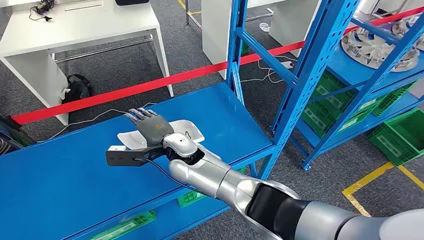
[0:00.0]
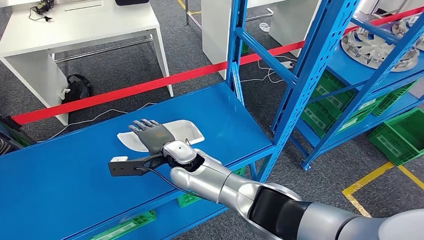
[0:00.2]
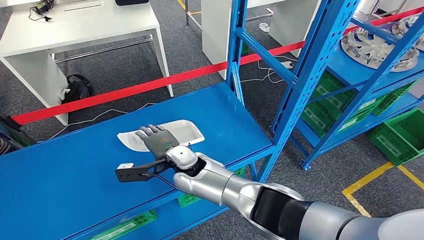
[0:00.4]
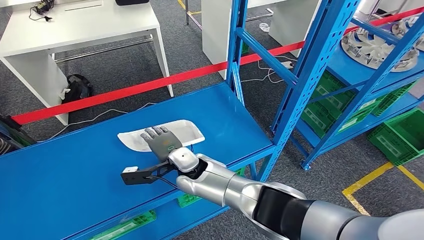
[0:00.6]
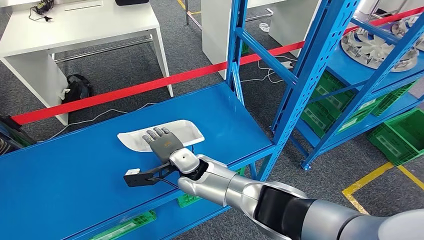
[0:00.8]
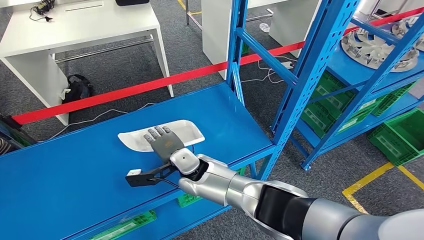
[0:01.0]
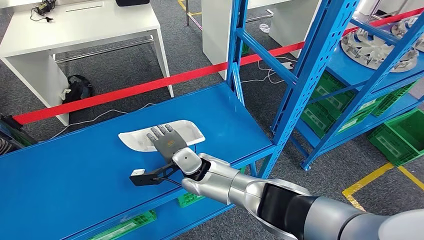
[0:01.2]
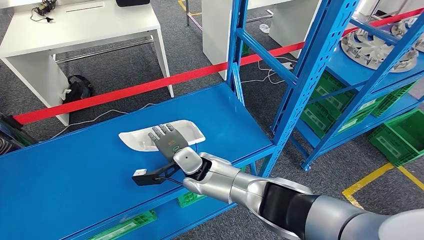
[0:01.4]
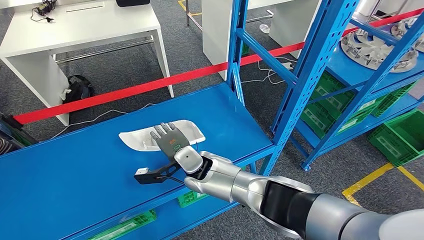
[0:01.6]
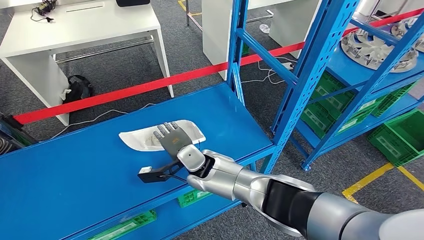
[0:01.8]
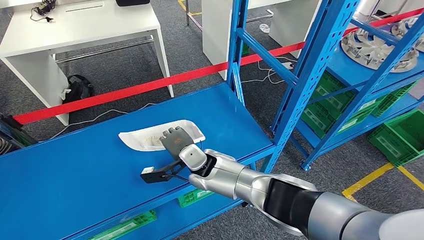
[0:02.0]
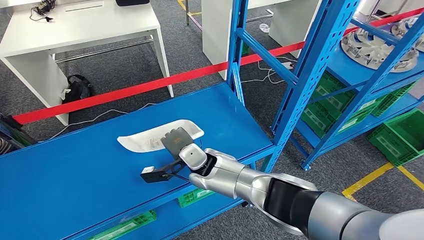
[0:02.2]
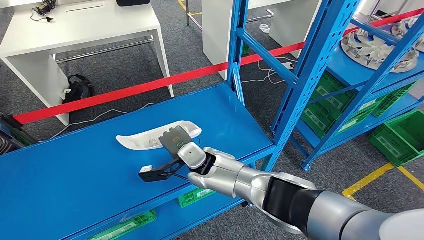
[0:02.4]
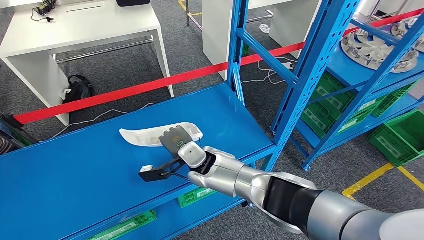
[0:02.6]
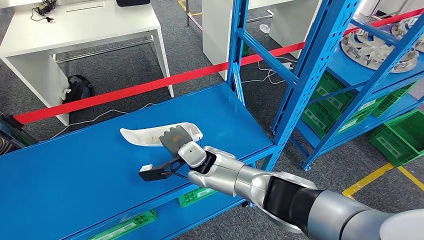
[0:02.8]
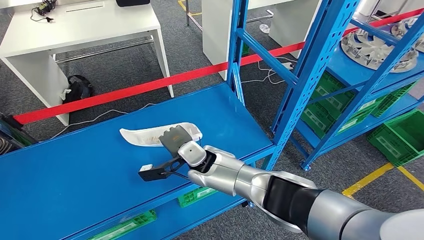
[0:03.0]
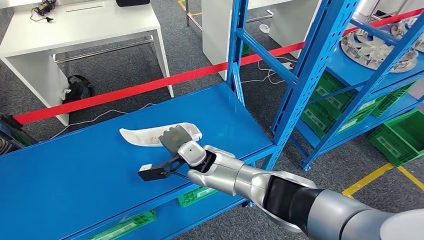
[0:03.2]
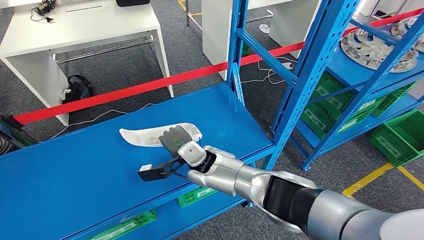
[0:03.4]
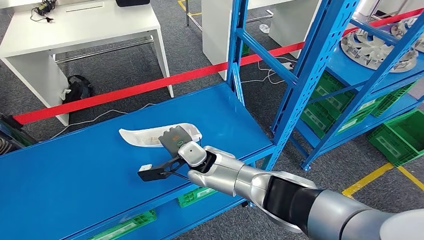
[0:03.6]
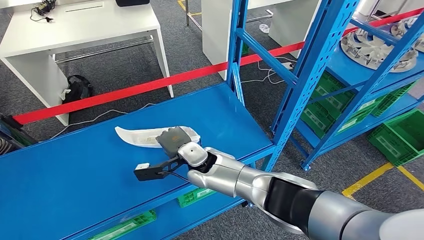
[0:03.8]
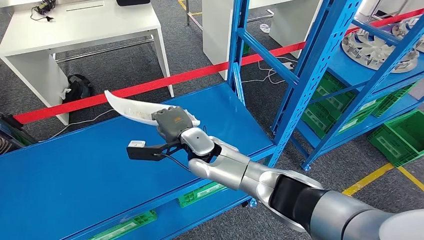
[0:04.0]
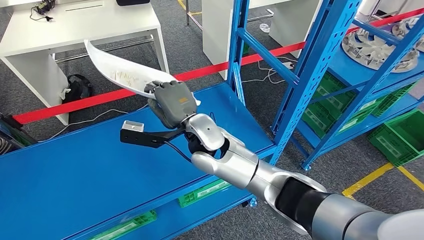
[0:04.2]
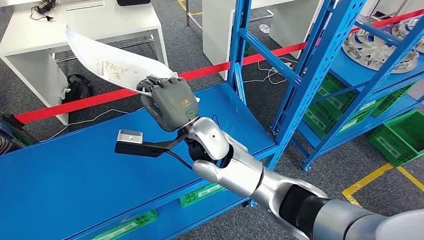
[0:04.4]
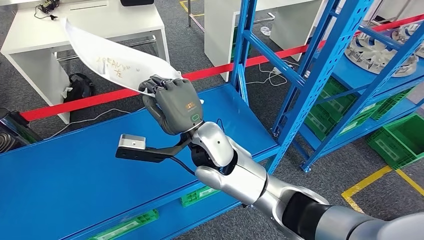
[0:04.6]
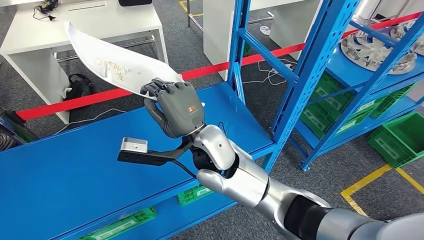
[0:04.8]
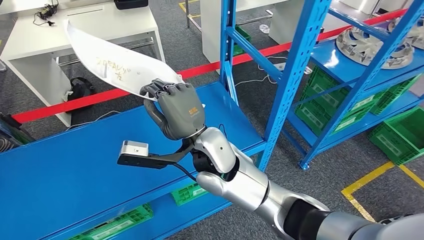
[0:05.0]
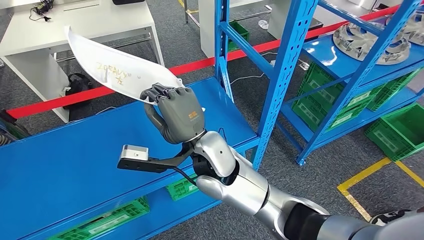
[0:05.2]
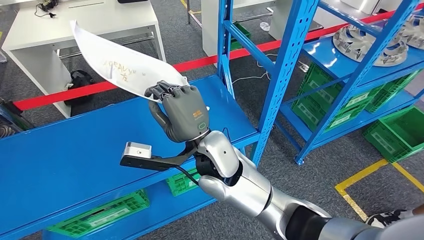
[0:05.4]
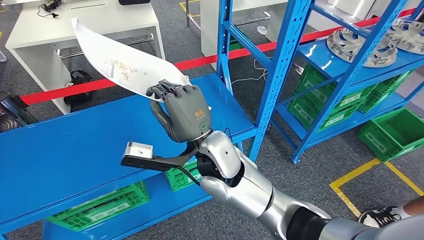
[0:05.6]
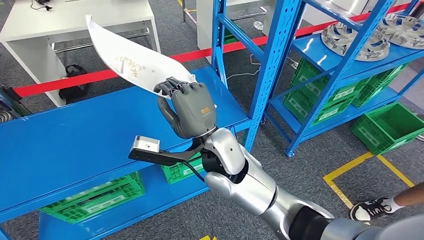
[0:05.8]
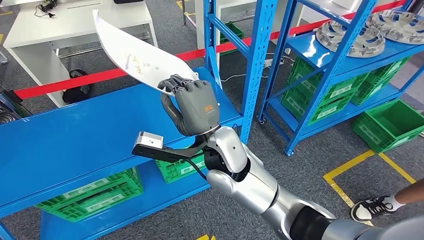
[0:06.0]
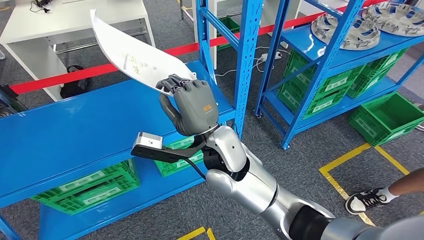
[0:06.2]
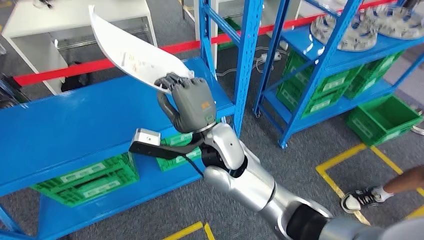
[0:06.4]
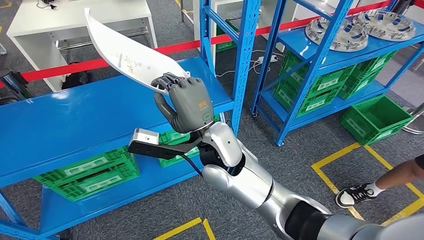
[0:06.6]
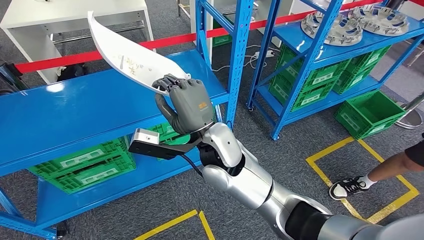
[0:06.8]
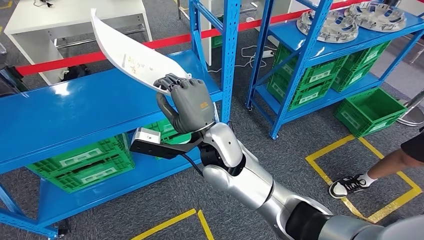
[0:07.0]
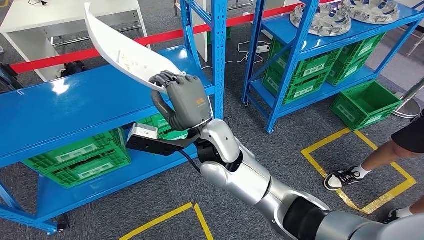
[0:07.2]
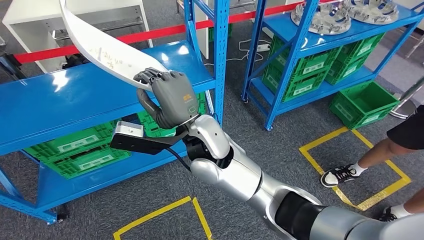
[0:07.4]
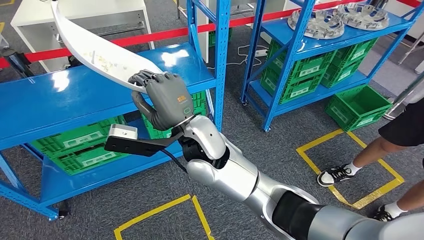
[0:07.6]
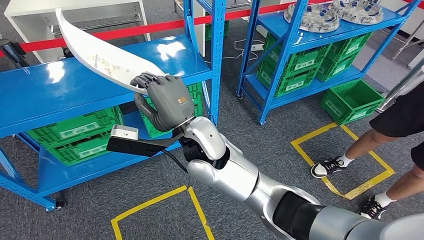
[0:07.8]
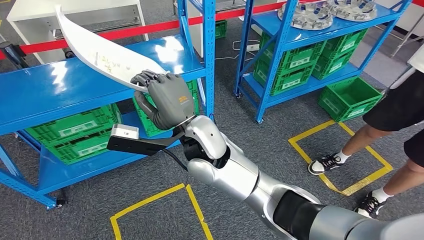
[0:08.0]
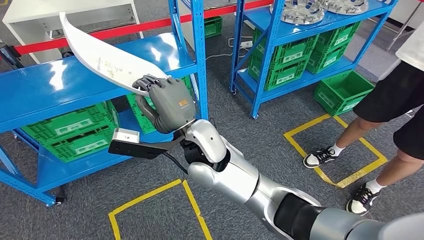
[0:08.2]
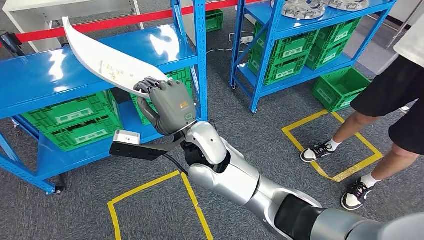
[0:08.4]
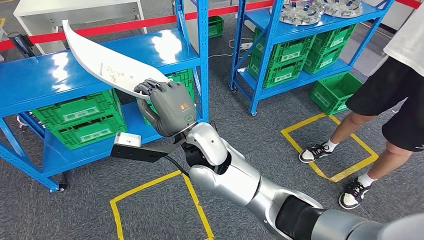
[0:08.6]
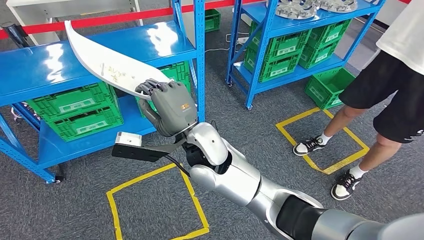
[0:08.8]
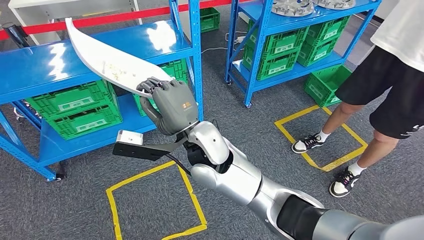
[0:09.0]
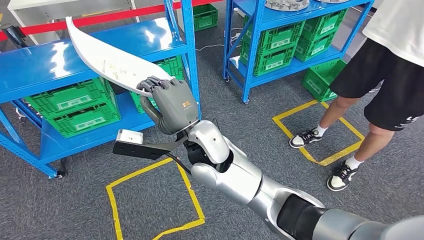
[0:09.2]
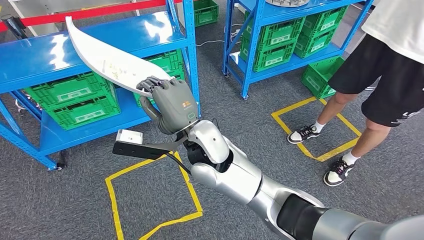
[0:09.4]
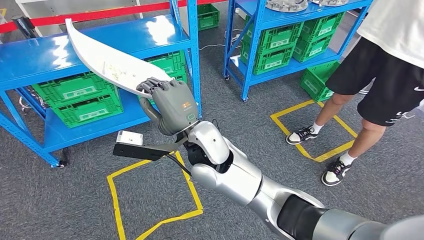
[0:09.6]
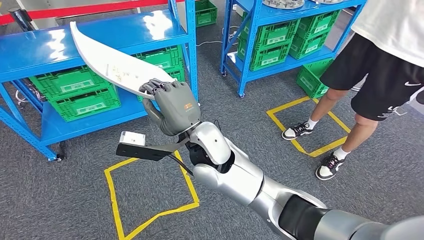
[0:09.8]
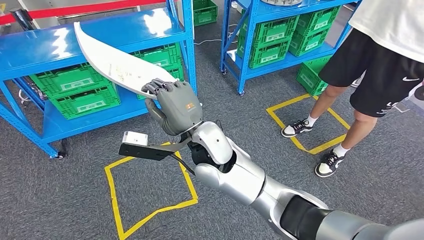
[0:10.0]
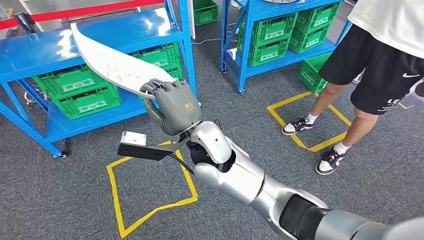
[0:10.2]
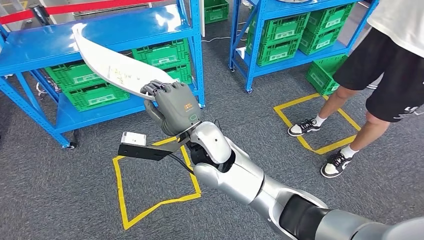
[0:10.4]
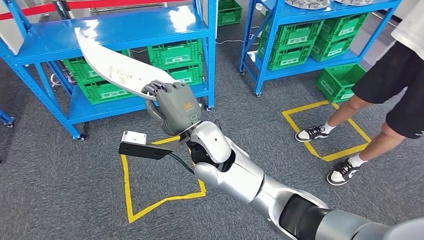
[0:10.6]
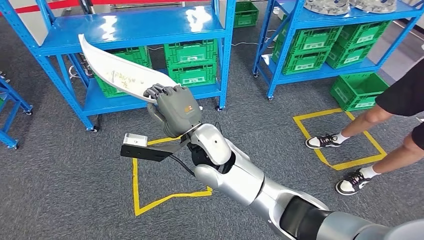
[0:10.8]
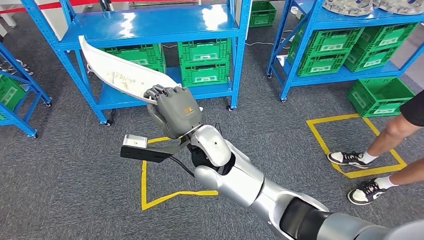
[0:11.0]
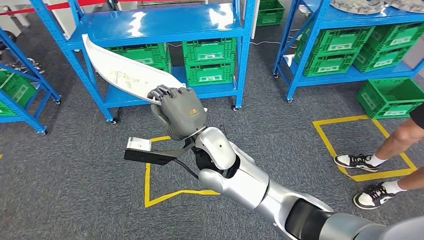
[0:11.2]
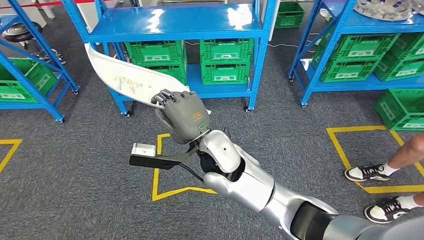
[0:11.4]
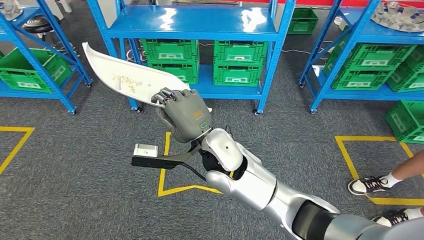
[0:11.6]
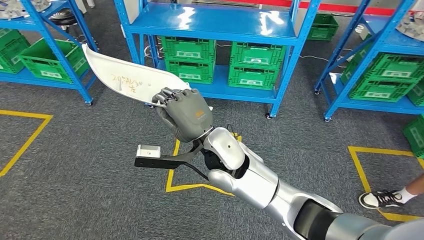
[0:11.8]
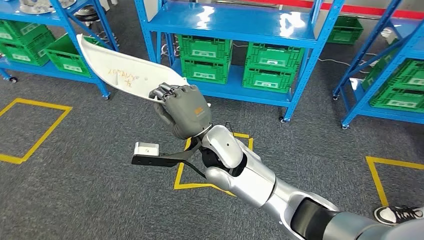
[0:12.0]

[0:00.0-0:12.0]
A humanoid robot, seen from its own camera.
Step, 0:00.0 to 0:04.4: Pick up the small component from the shelf.
0:01.6 to 0:03.0: The hands make only small movements.
0:03.0 to 0:04.4: The right hand shifts about 15 cm upward and to the left.

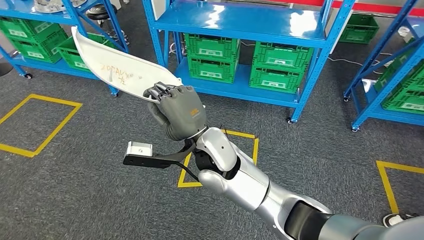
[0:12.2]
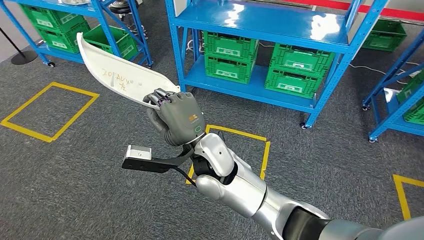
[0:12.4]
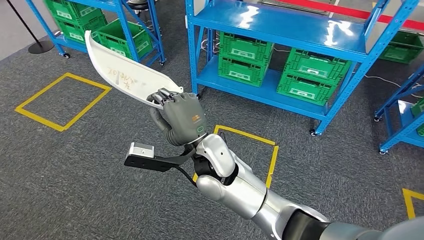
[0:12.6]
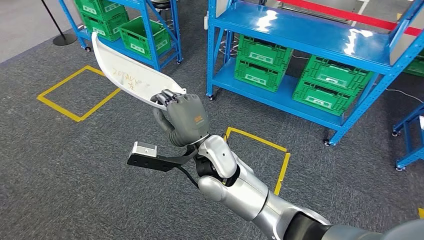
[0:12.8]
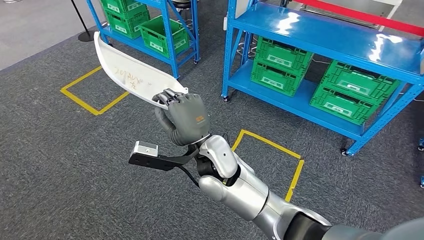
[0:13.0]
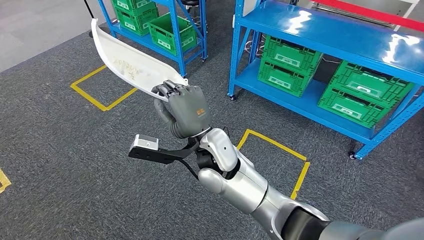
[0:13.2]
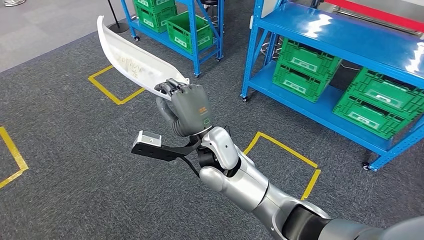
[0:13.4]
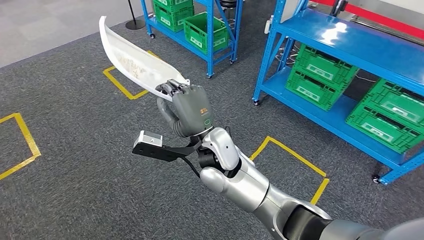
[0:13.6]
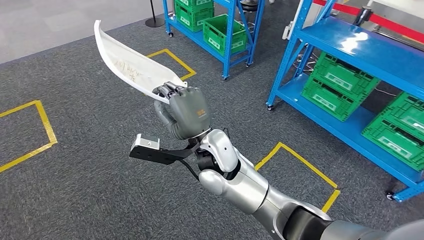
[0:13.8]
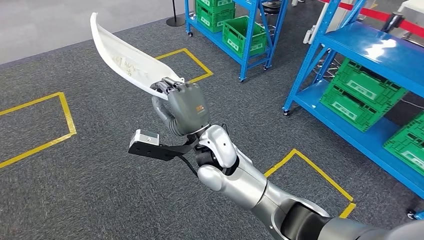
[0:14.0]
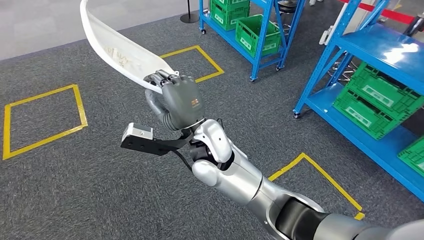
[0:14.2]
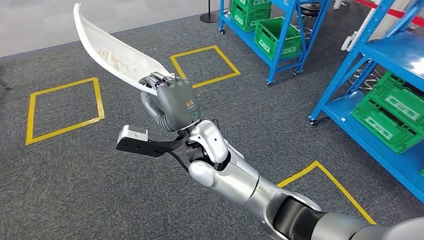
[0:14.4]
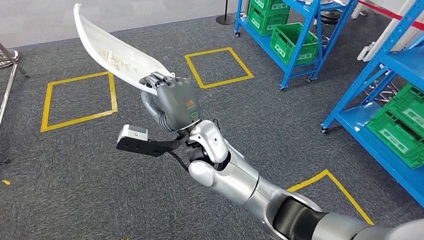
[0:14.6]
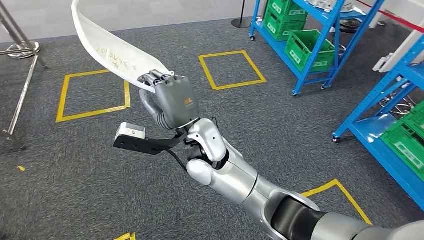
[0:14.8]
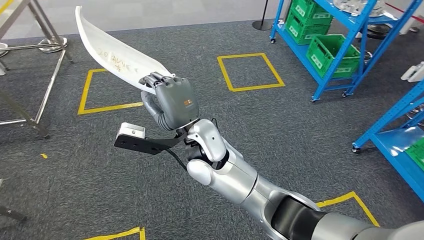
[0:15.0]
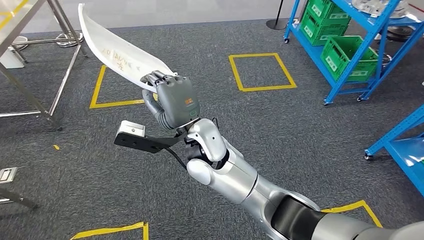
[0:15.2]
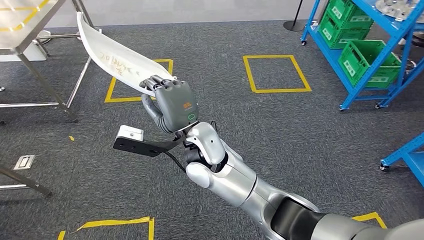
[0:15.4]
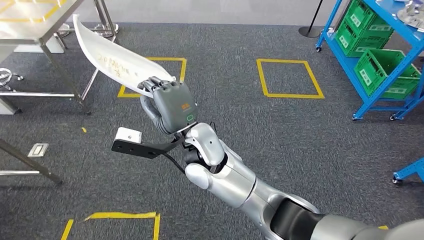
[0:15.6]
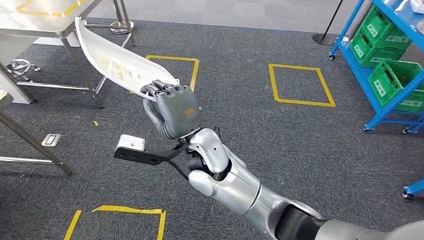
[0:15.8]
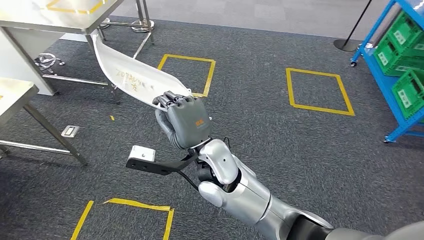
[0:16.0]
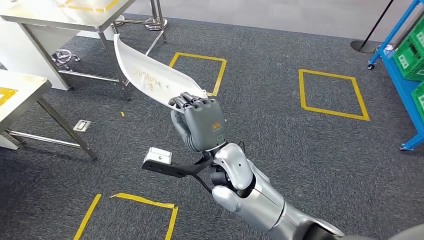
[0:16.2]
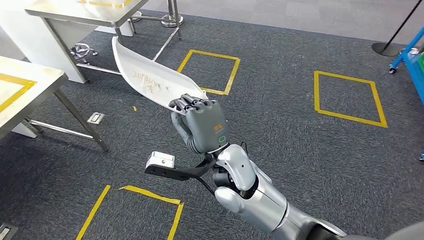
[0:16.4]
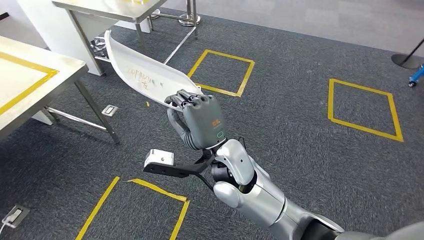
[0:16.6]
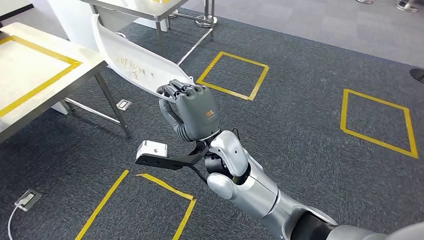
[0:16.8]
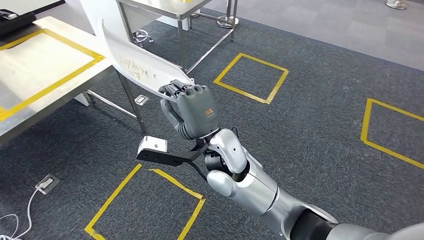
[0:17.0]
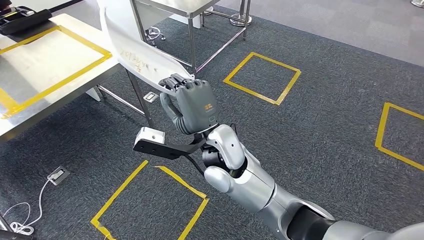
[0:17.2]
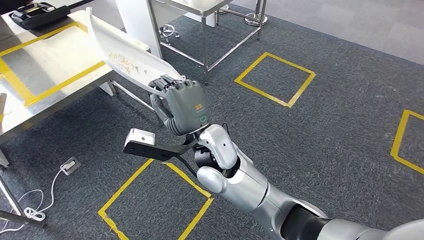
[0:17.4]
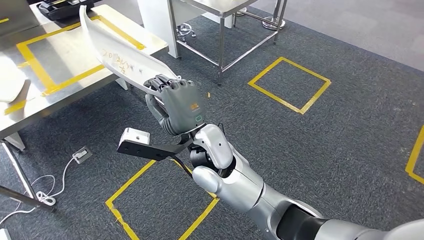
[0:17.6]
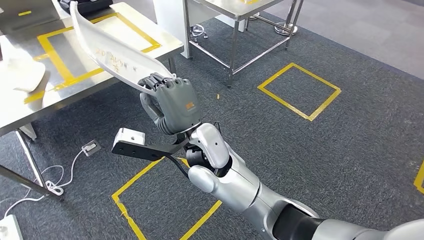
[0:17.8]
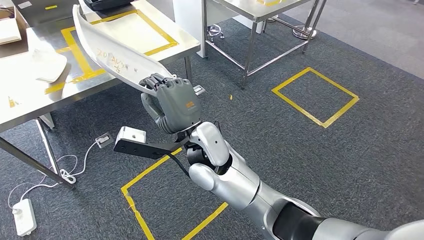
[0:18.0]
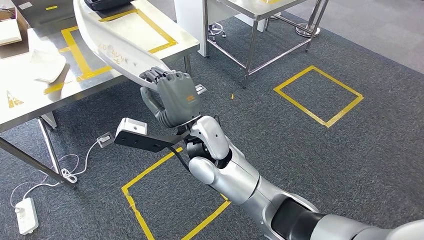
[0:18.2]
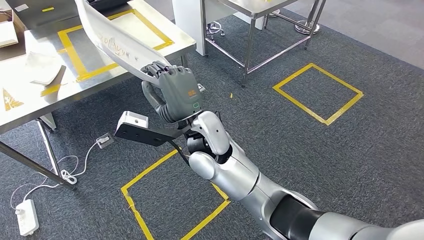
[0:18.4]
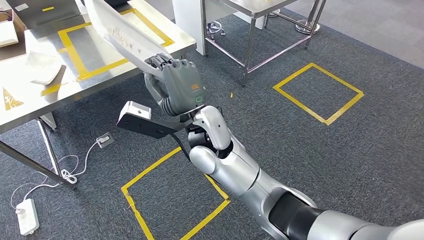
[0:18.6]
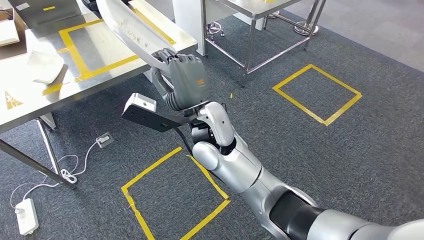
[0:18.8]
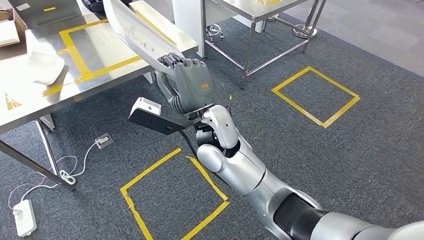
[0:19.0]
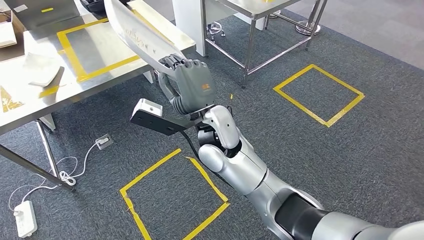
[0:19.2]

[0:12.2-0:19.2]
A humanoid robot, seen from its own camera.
Step, 0:12.2 to 0:18.6: Move the small component to the workbench.
